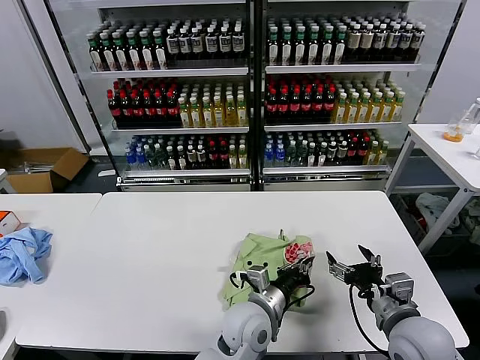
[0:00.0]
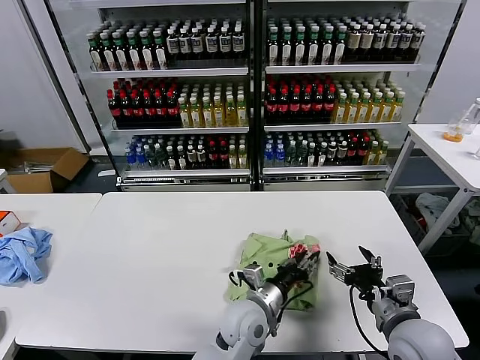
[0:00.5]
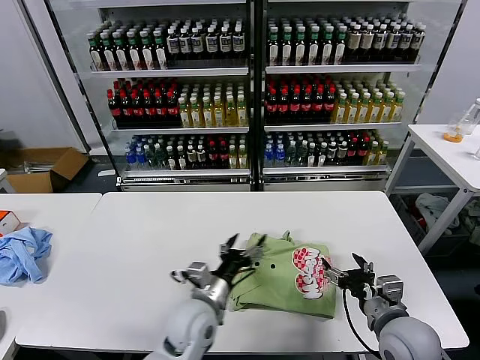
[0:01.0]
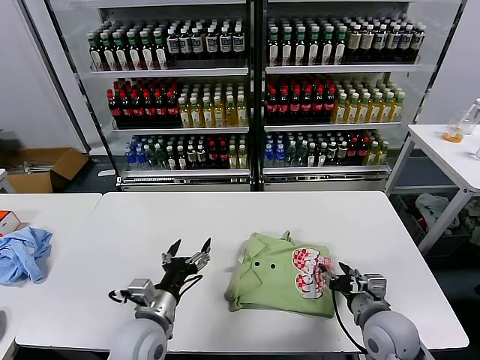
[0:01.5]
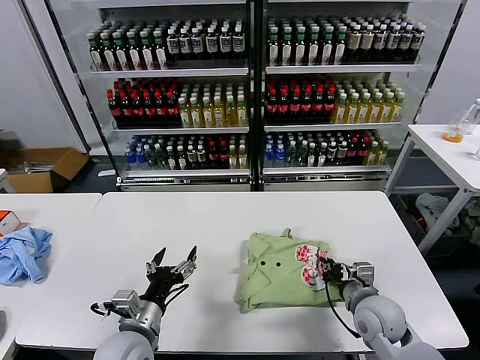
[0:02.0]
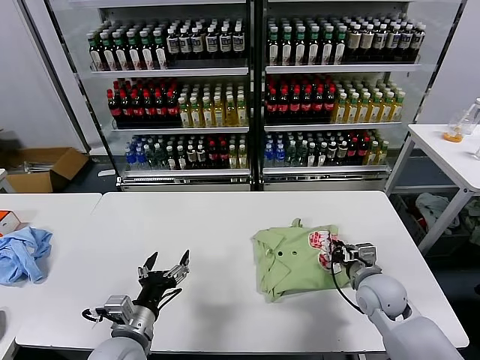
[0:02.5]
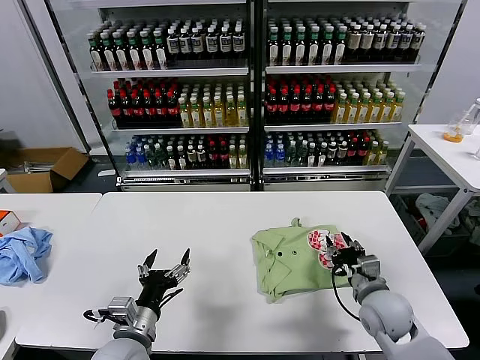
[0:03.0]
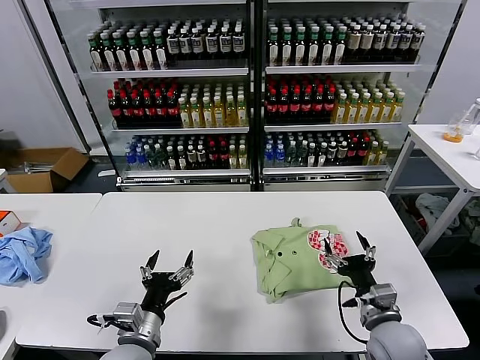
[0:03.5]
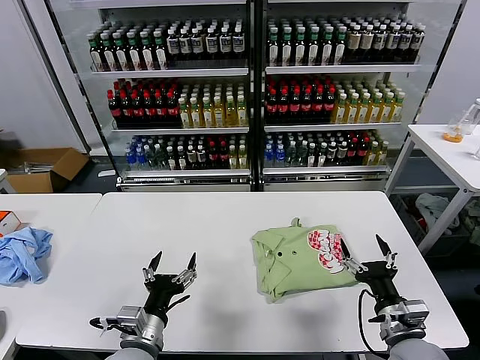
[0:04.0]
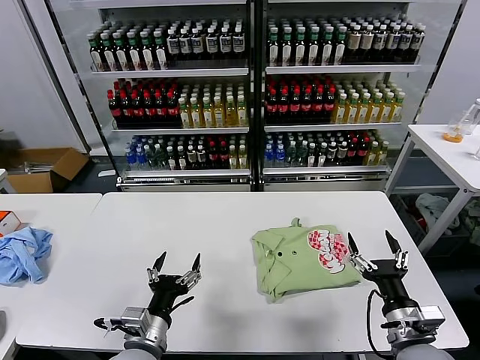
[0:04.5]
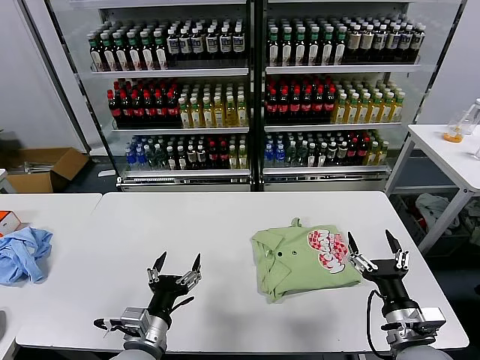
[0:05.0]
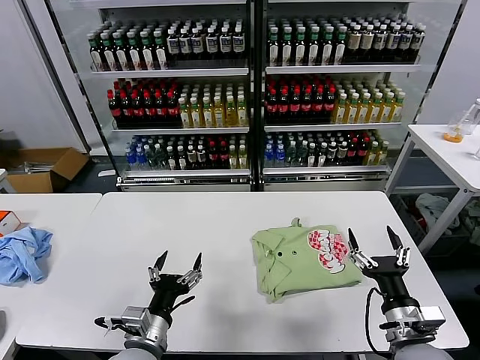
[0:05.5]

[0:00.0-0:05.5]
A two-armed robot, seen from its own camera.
Task of the whole recording: fold and organize the clothes.
Step, 0:01.0 to 0:02.5: Drag the clothes to the center of the table.
0:00.0 to 0:02.0: The left gripper goes roughly 20 cm to the left, and opens its fingers; the right gripper is displaced downward and forward by about 10 cm, and closes its fingers.
0:02.0 to 0:03.5: The right gripper shifts by some 5 cm, and opens its fingers.
0:03.5 to 0:05.5: The right gripper shifts some 5 cm backward.
